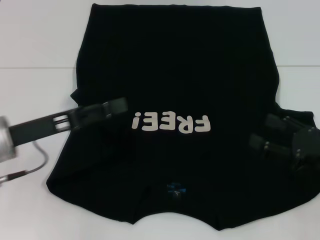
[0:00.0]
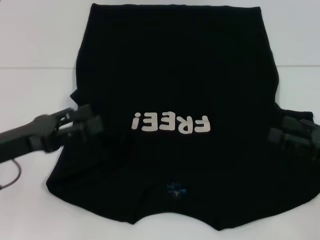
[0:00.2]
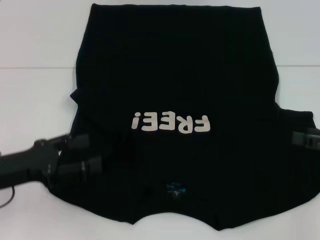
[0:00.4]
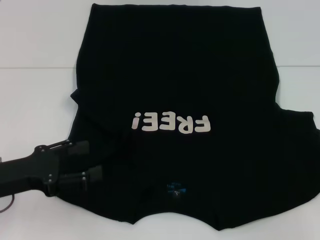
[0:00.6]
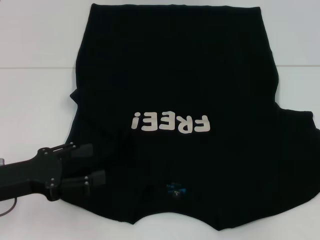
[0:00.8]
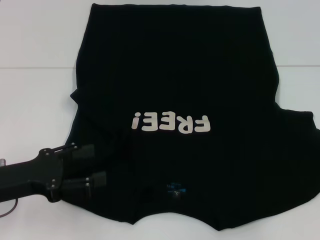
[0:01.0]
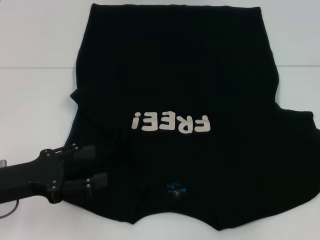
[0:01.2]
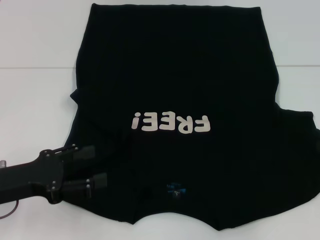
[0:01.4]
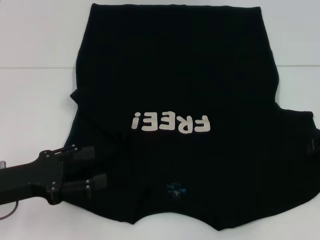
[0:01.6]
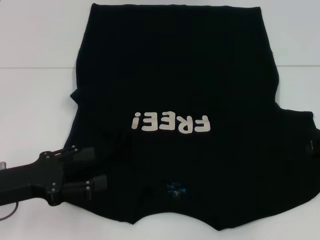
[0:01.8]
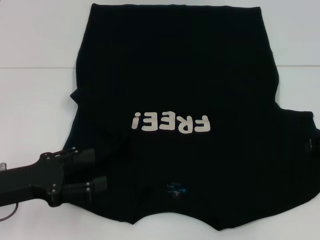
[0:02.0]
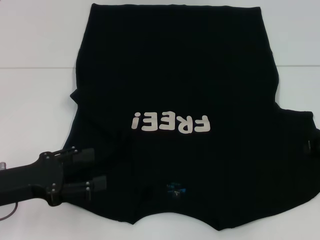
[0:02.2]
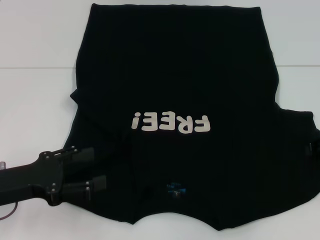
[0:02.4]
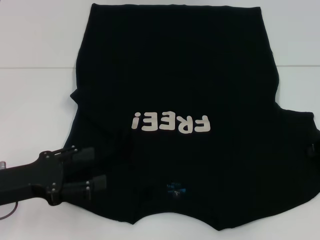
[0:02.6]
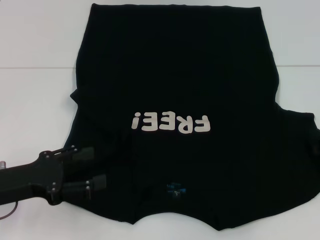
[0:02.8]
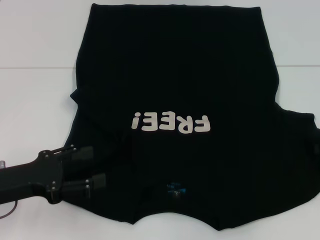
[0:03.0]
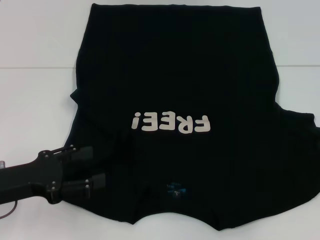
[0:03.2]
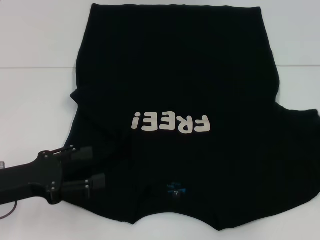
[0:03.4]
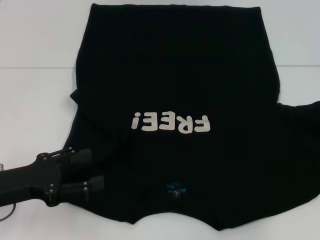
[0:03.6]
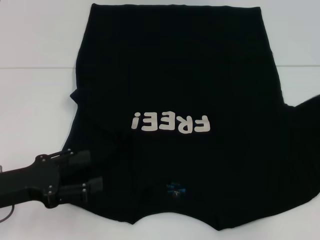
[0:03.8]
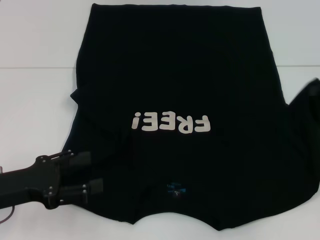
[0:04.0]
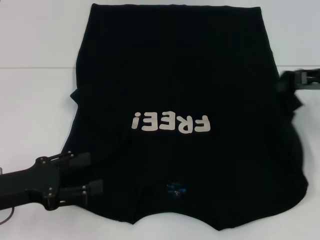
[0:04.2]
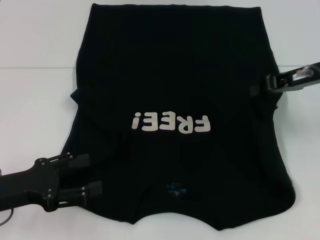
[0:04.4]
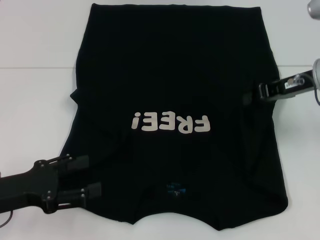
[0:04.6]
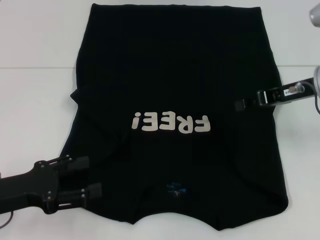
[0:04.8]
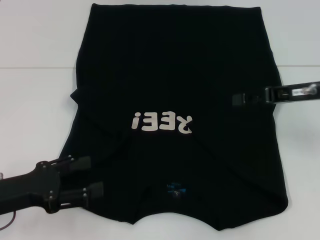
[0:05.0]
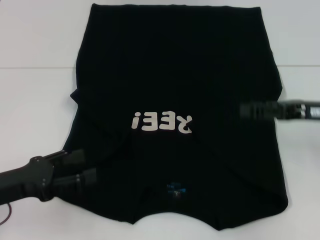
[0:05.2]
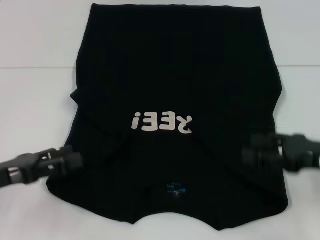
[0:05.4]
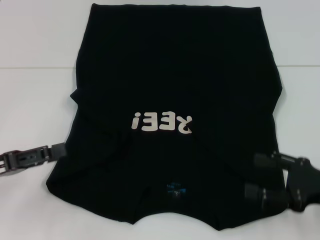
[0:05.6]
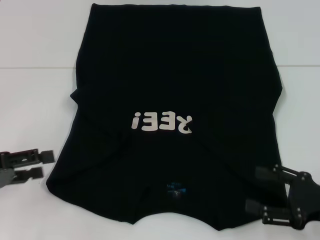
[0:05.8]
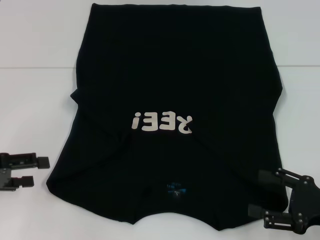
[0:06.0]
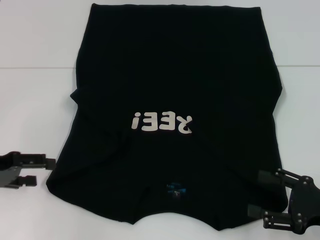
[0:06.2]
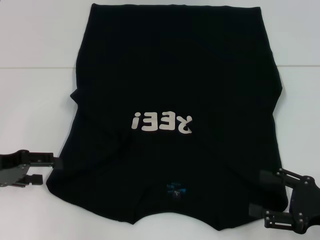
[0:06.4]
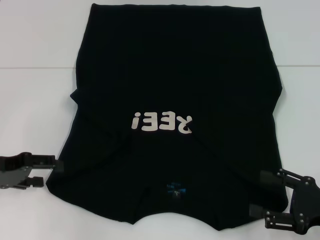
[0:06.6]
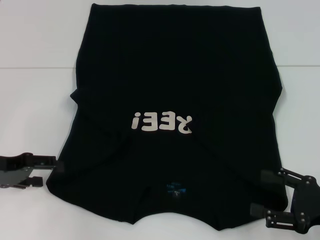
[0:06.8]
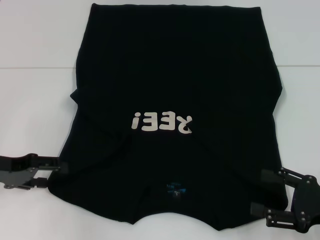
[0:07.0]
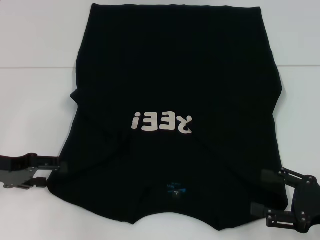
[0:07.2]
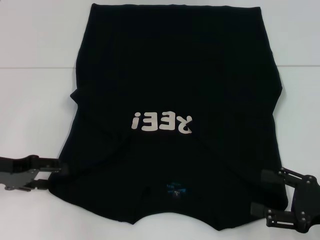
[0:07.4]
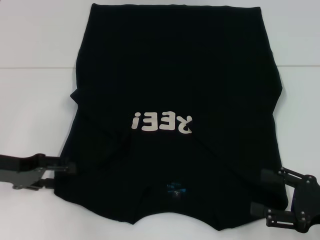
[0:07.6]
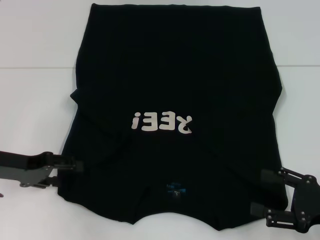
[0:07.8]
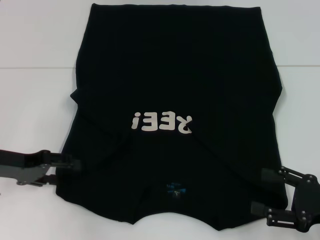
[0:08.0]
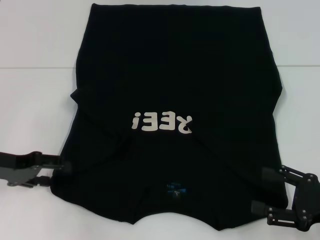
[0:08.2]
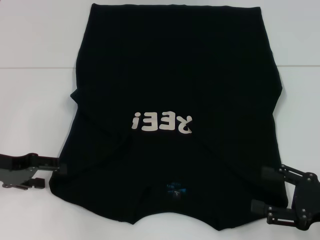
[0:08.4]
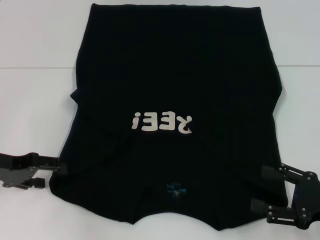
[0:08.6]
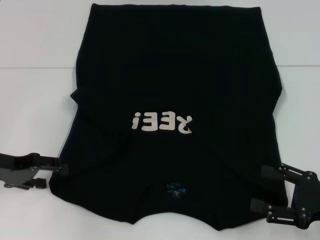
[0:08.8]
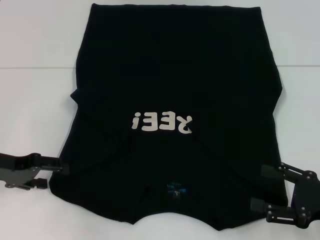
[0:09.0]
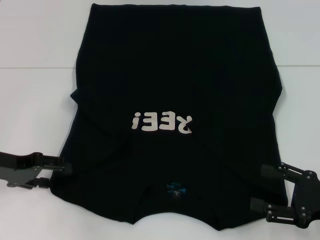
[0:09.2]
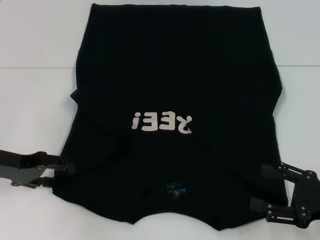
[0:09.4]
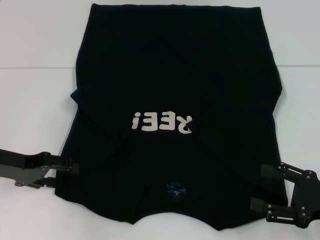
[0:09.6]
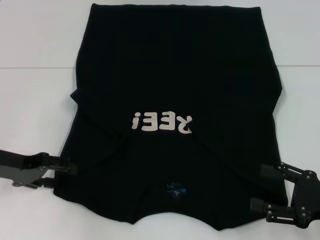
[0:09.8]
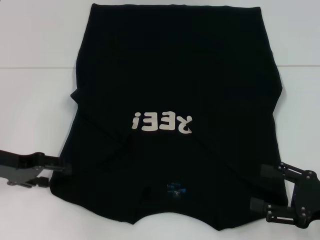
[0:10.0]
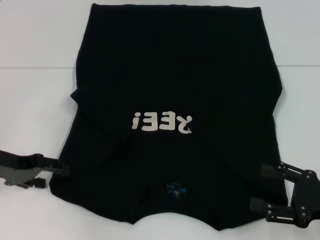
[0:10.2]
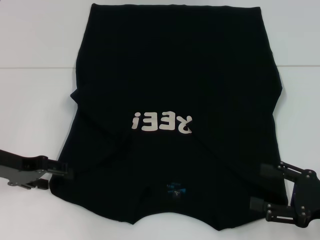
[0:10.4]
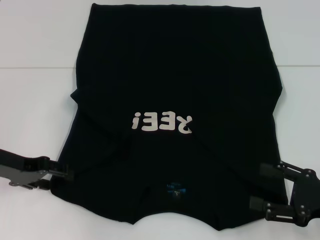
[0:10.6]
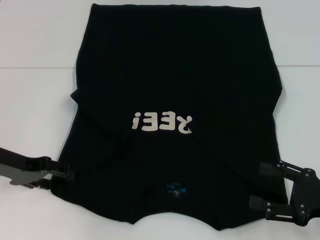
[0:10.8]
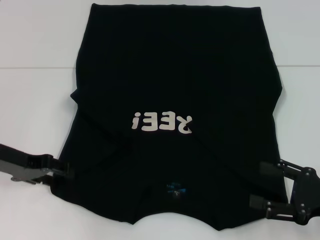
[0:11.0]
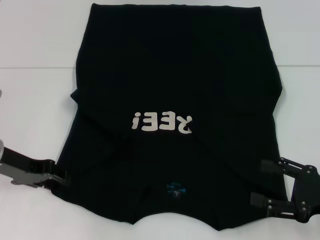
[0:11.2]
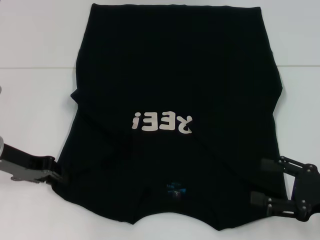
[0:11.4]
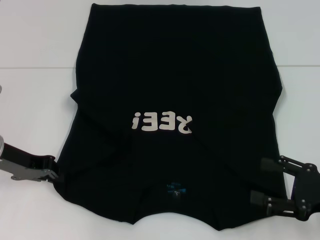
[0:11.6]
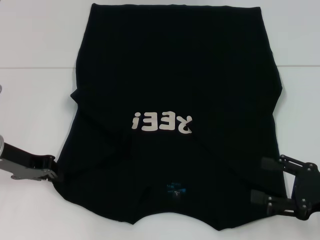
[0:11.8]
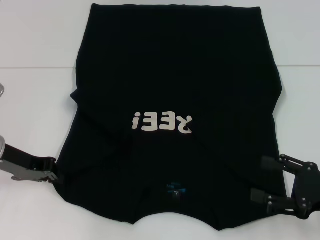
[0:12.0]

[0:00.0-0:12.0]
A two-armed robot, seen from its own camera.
Step, 0:00.0 to 0:05.2: Fold the bottom right sleeve with your right hand.
0:00.0 to 0:01.6: The right gripper heads forward, upward and to the right, covering about 10 cm, while the left gripper shifts roughly 5 cm backward.
0:03.0 to 0:04.4: The right gripper heads to the left and upward, covering about 10 cm.
0:04.4 to 0:06.0: The left gripper moves to the left, roughly 5 cm. The right gripper heads backward and downward, covering about 25 cm, and opens.
0:06.0 to 0:07.6: The left gripper moves some 5 cm.
0:07.6 to 0:09.0: Both grippers stay put.
0:09.0 to 0:10.4: There are only small adjustments of the grippers.
0:10.4 to 0:12.0: The left gripper closes up.

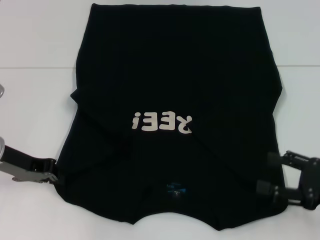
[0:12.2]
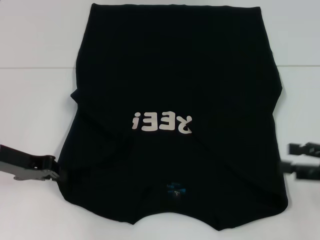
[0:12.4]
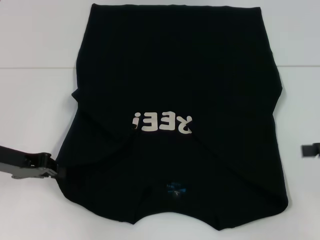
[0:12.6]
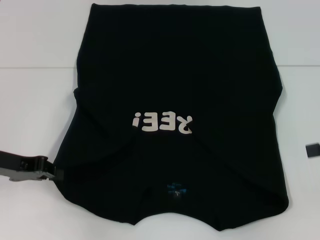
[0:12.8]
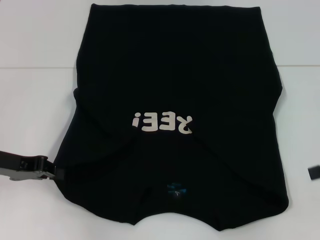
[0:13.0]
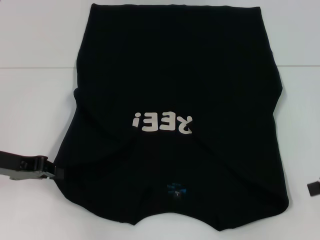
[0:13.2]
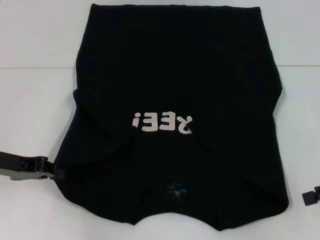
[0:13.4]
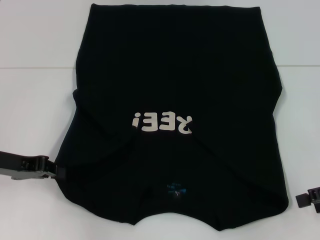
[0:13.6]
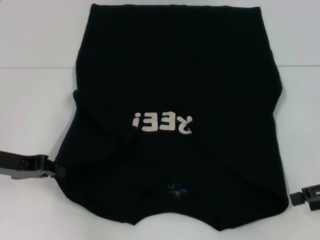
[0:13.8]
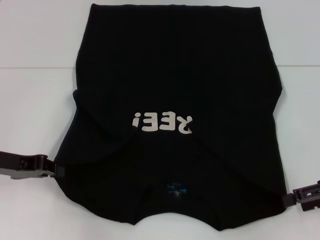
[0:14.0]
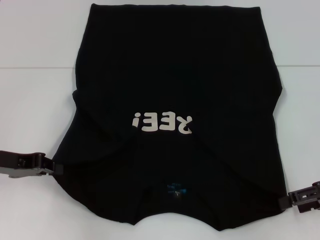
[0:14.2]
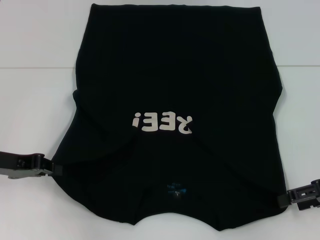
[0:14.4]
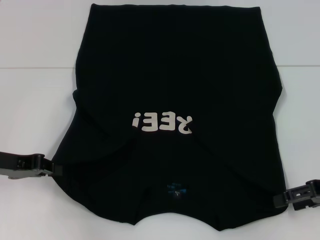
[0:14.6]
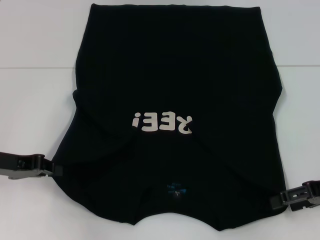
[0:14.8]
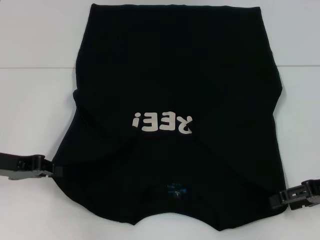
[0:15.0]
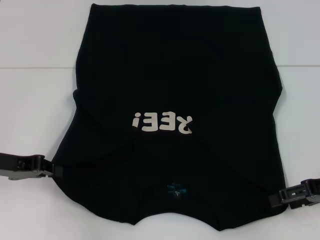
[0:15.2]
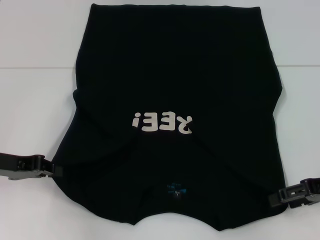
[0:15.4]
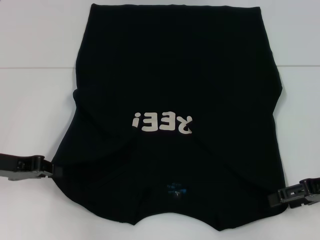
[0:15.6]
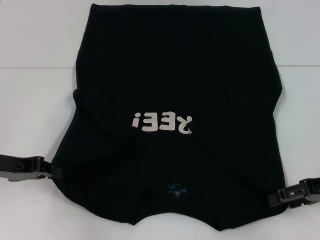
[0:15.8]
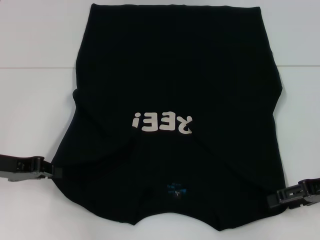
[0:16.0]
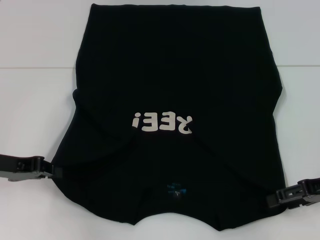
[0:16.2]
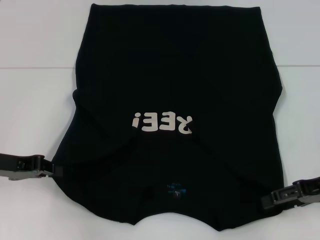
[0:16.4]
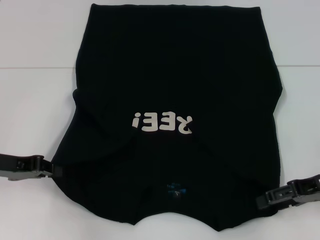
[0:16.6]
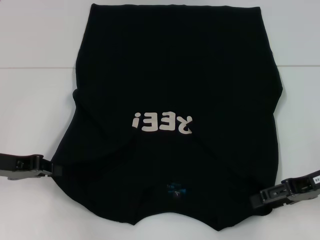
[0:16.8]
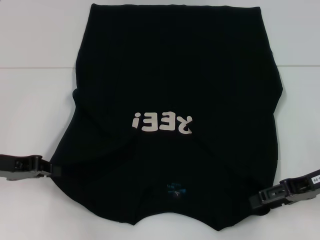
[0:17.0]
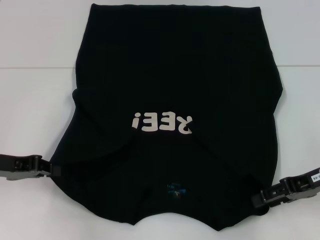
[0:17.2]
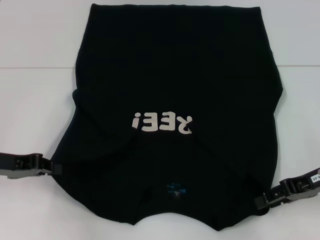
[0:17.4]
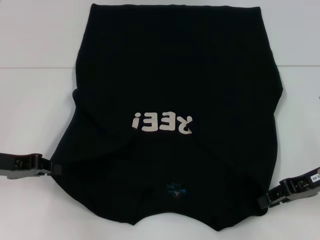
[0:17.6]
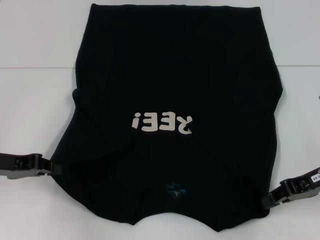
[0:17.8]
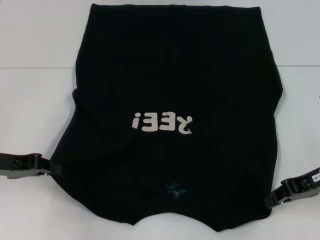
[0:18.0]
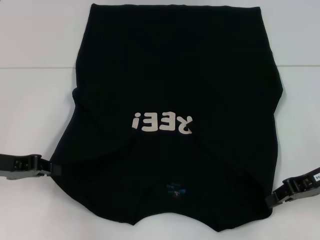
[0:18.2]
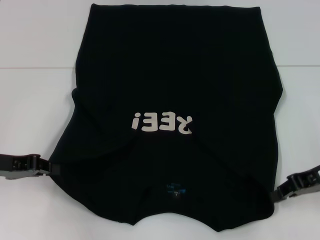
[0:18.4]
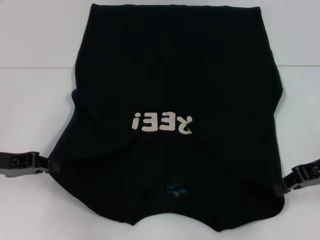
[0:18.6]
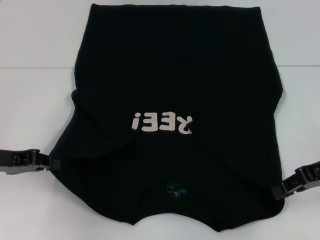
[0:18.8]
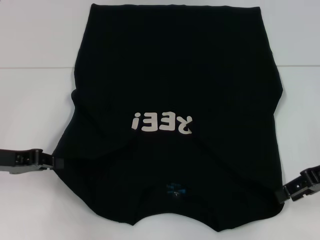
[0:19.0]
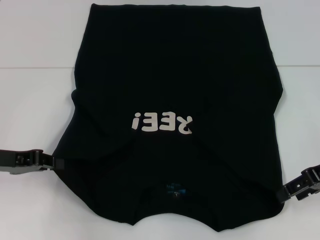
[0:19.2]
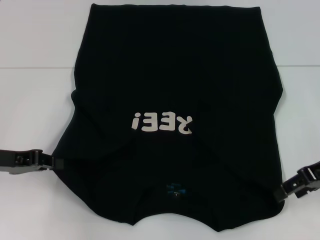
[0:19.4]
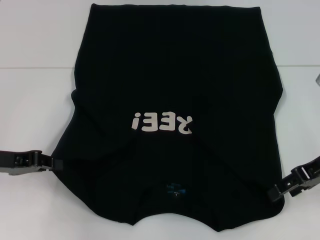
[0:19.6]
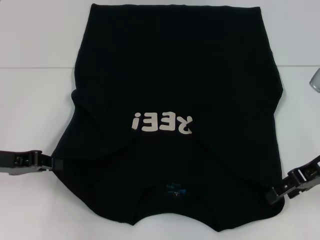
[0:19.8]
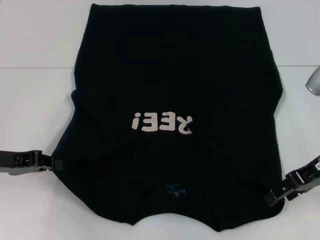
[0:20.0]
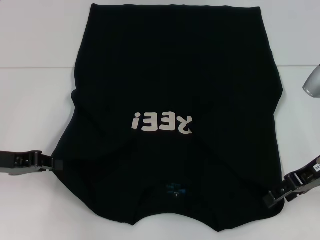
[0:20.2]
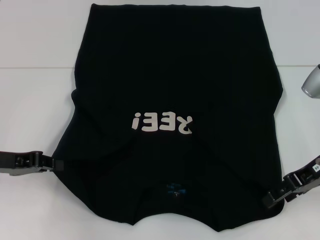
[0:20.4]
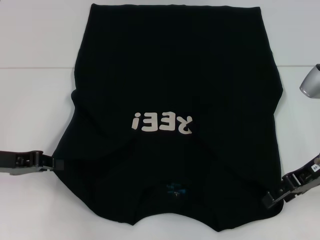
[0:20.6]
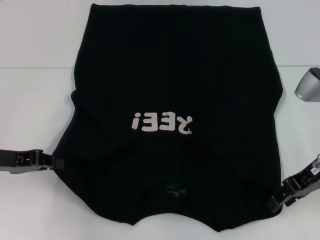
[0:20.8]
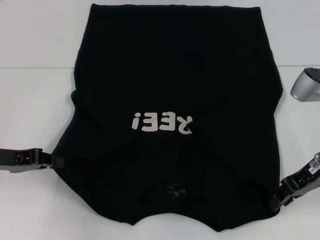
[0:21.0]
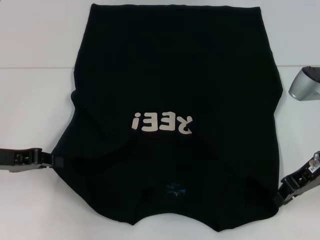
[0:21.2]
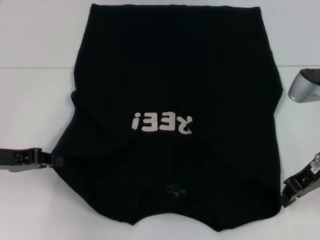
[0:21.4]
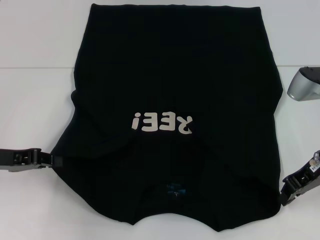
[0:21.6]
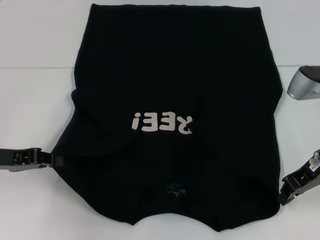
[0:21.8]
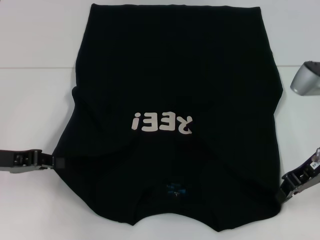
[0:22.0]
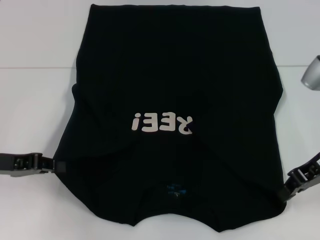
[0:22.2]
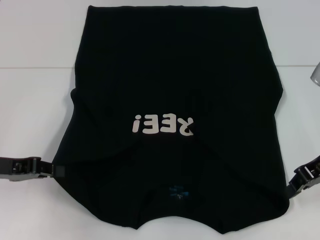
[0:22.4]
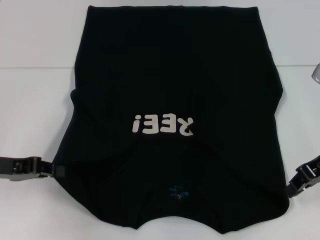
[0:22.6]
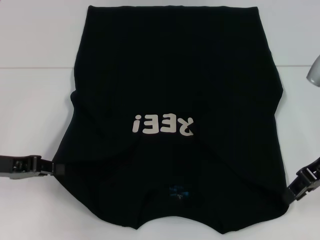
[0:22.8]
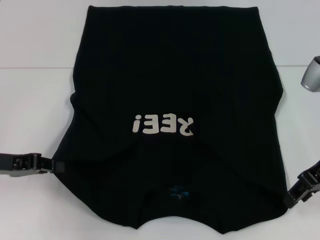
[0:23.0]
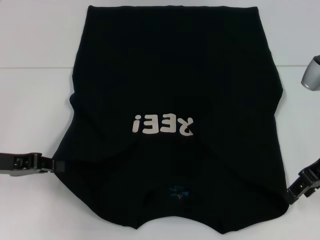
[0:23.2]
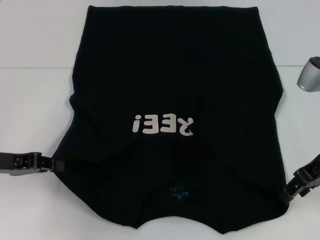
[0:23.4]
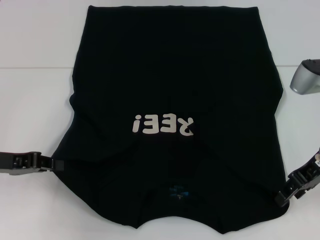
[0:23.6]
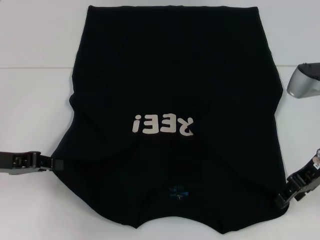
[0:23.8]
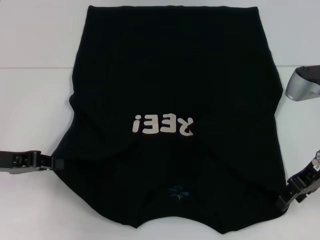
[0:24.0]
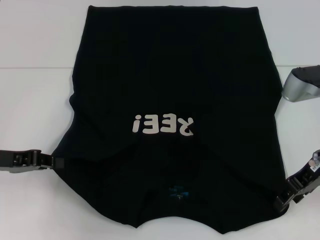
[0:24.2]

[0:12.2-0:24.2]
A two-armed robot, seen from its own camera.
0:12.2 to 0:13.8: The right gripper goes roughly 5 cm forward.
0:13.8 to 0:16.6: There are only small adjustments of the grippers.
0:16.6 to 0:18.2: The right gripper closes its fingers.
0:18.2 to 0:19.8: The right gripper opens its fingers.
0:19.8 to 0:21.2: The right gripper closes up.
0:21.2 to 0:22.6: There are only small adjustments of the grippers.
0:22.6 to 0:24.2: The right gripper opens.
